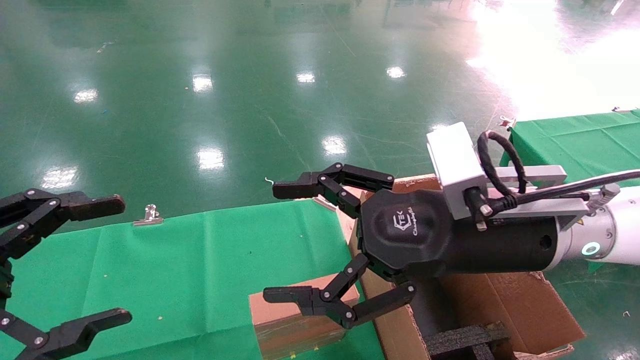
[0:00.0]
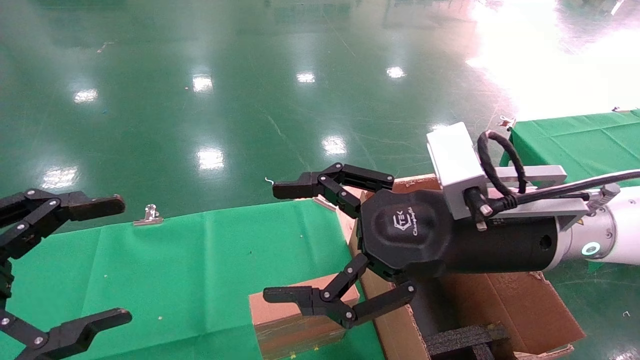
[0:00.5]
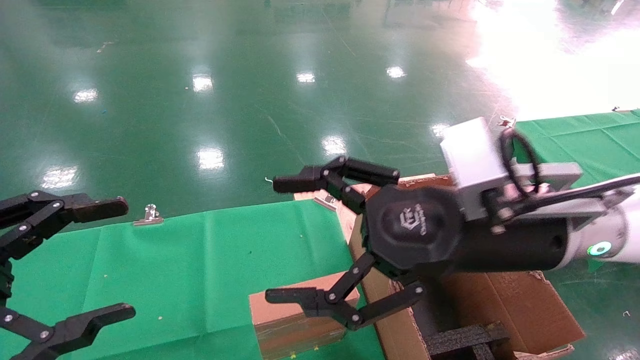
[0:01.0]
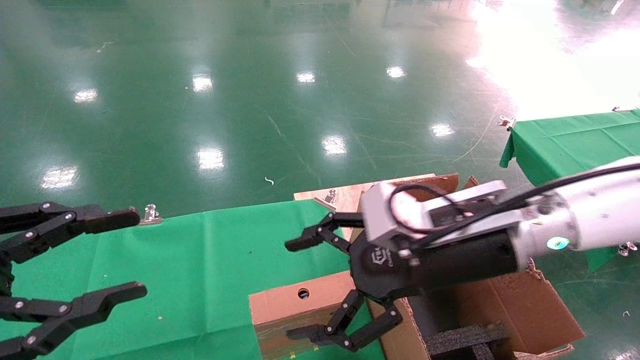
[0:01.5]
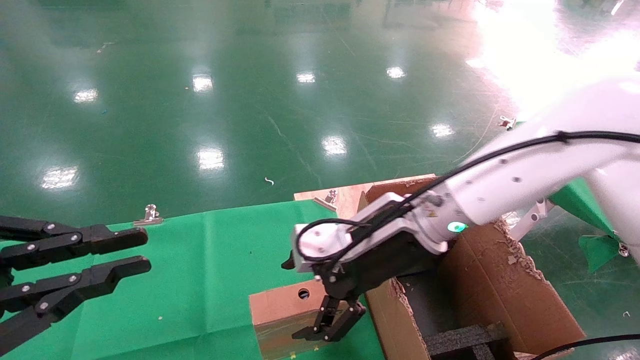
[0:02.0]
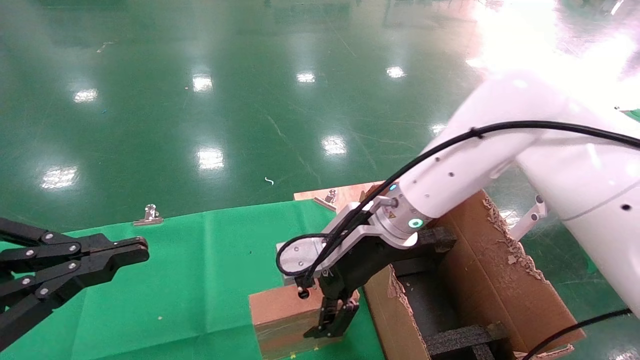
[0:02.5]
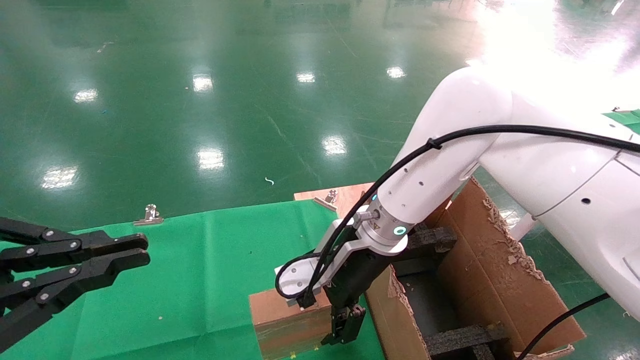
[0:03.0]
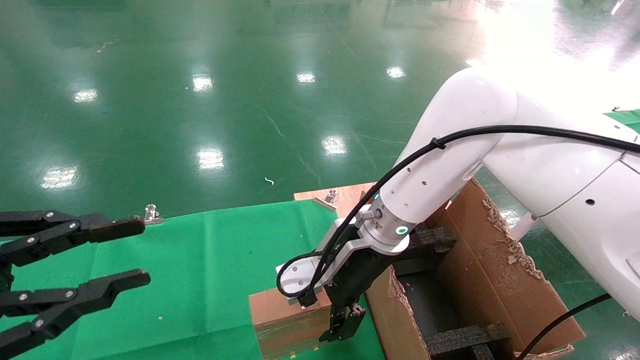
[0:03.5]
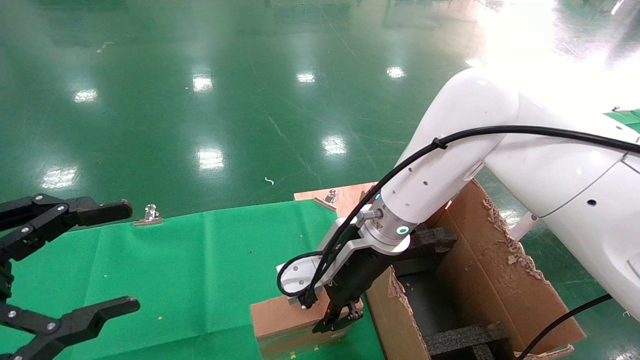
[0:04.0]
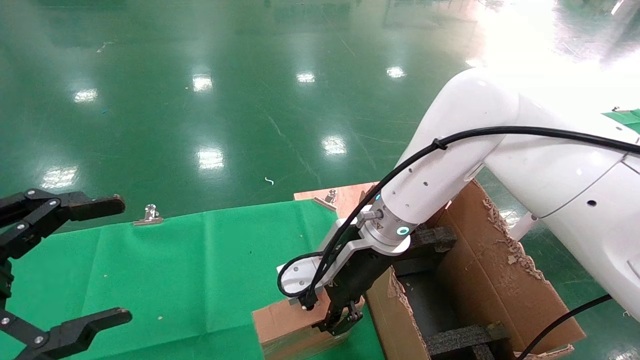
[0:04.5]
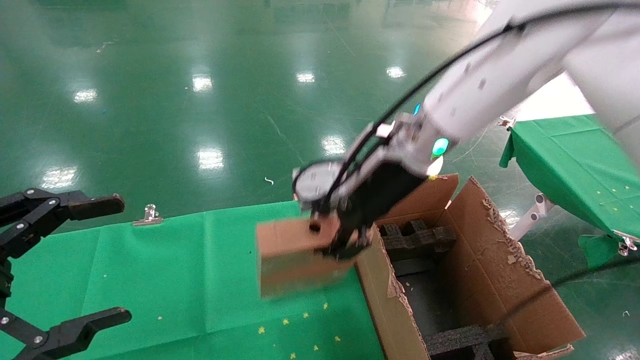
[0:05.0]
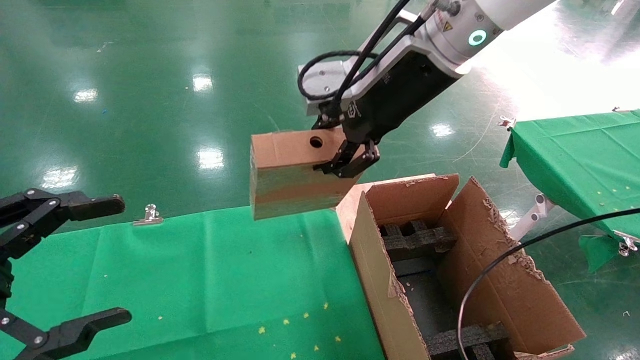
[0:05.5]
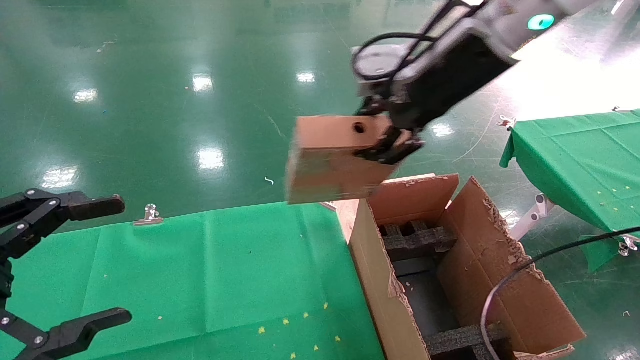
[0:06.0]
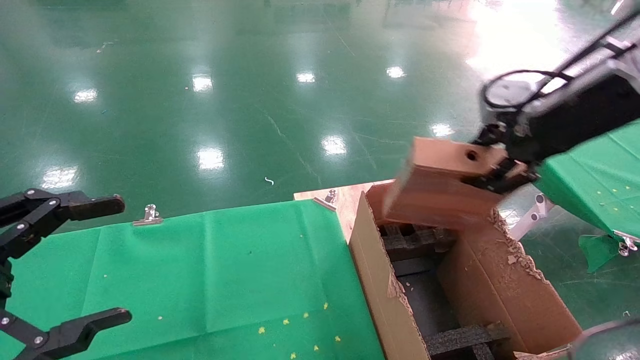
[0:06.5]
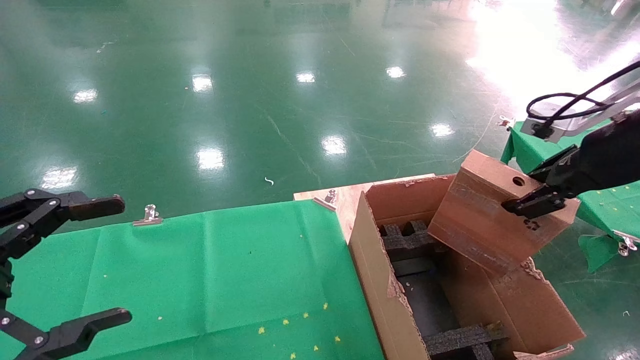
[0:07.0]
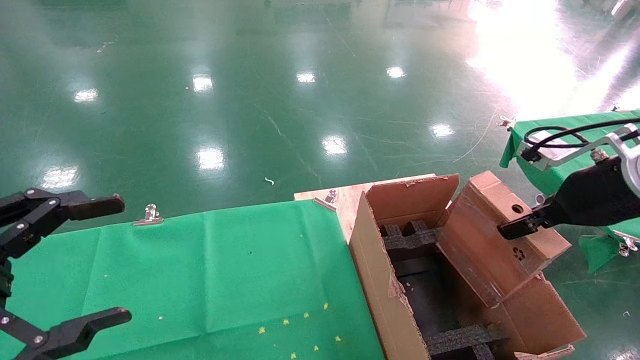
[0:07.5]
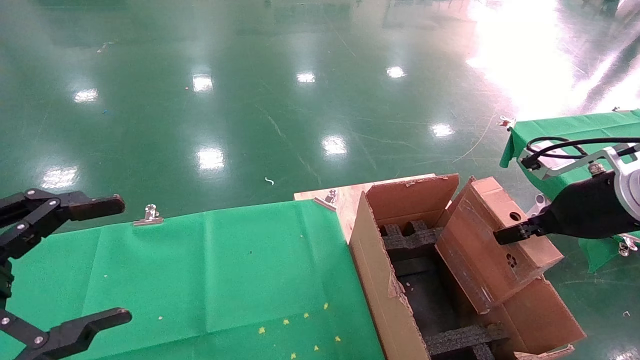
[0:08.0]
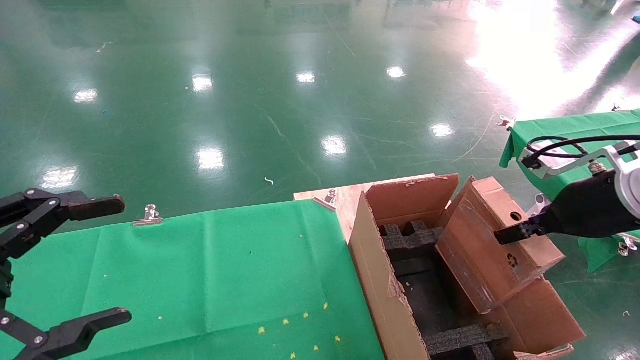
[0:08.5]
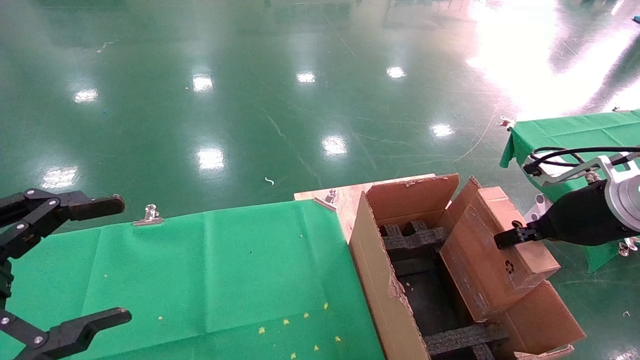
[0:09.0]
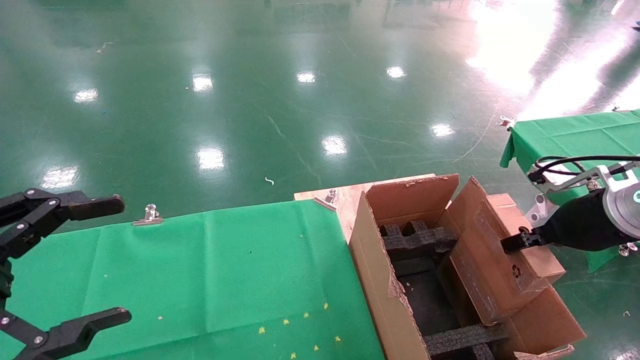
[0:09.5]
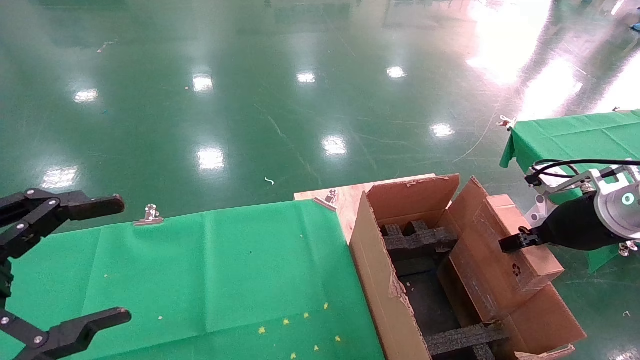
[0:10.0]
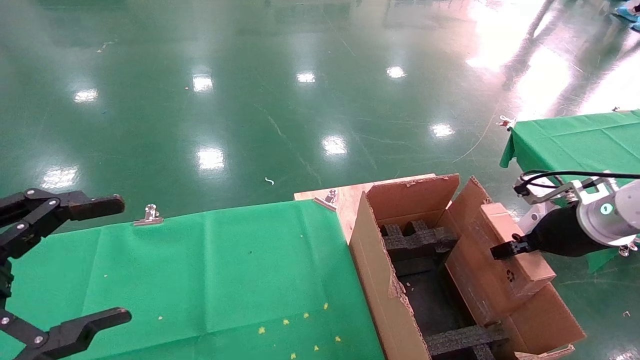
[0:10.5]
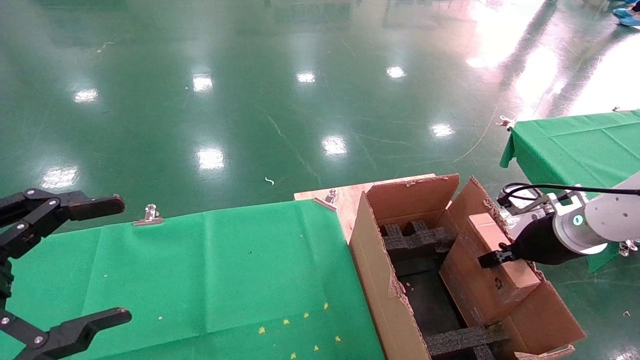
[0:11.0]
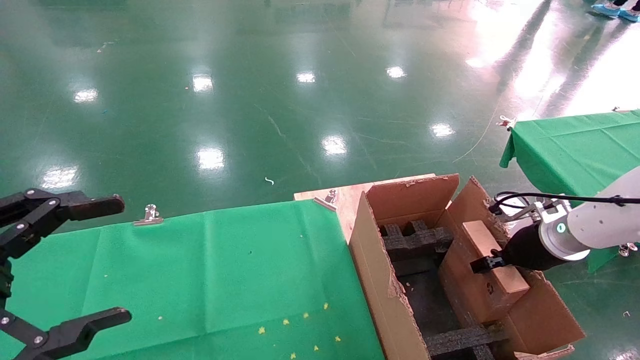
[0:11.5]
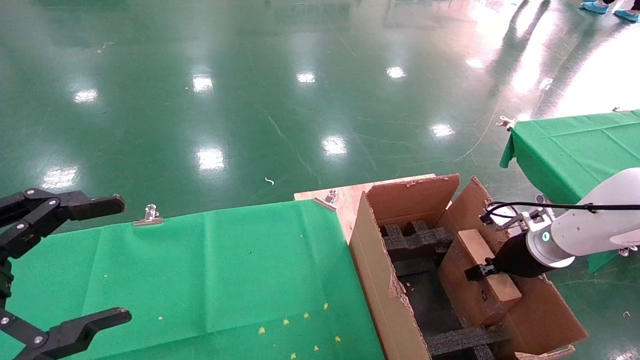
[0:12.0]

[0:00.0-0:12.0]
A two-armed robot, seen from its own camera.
Task of the whole recording: using a robotic arm to pick up a cardboard box and palace it the carton.
Step, 0:01.5 to 0:04.0: Pick up the mouse and the power cord paper box.
0:00.0 to 0:02.0: The right gripper moves forward and to the left, approximately 10 cm. The left gripper closes its fingers.
0:02.0 to 0:04.0: The left gripper opens. Meanwhile the right gripper moves roughly 5 cm, and closes up.
0:04.0 to 0:06.0: The right gripper is displaced upward and to the right by some 25 cm, and closes up.
0:06.0 to 0:08.0: The right gripper travels to the right, downward and backward by approximately 25 cm.
0:08.0 to 0:10.0: The right gripper changes place by roughly 5 cm.
0:10.0 to 0:12.0: The right gripper moves downward and forward, some 15 cm.

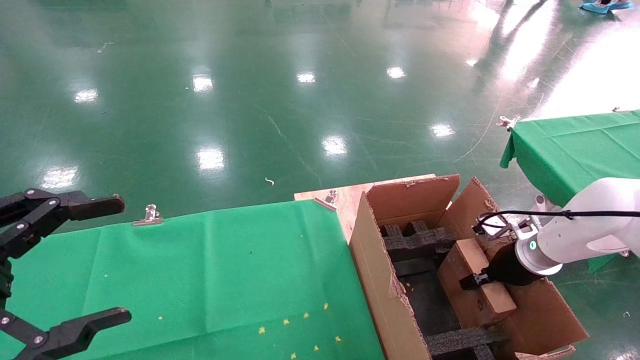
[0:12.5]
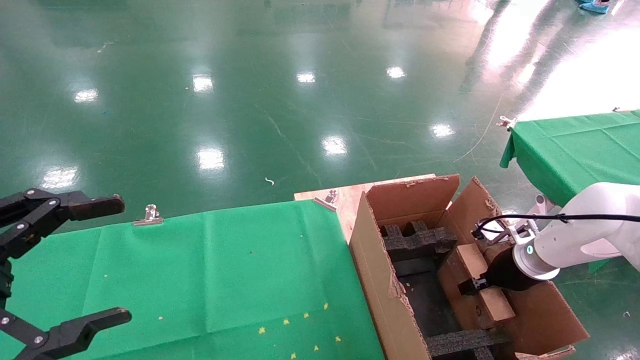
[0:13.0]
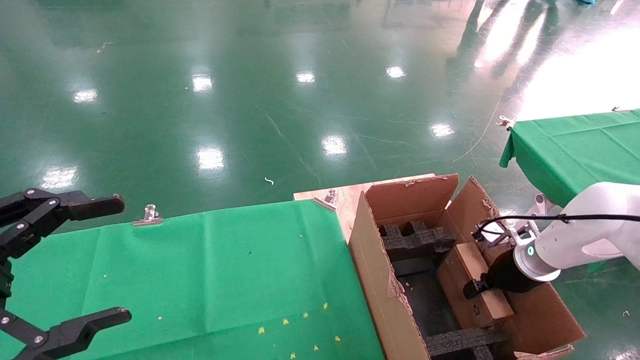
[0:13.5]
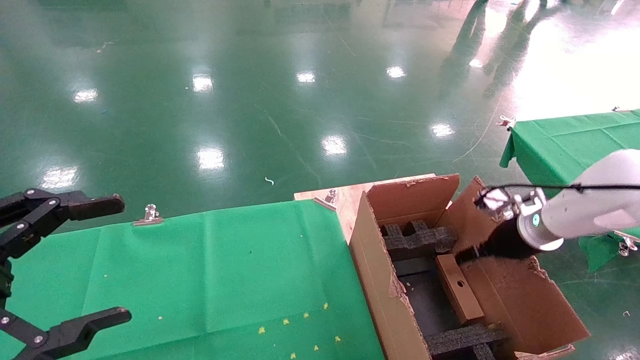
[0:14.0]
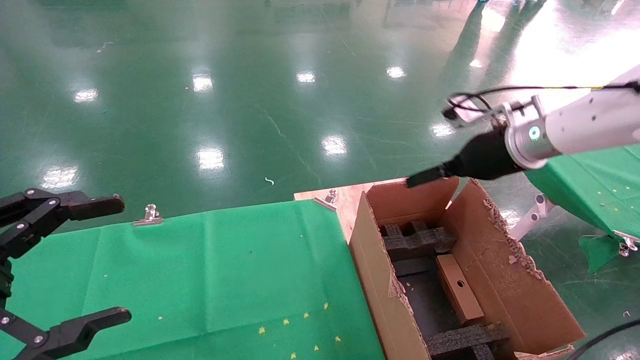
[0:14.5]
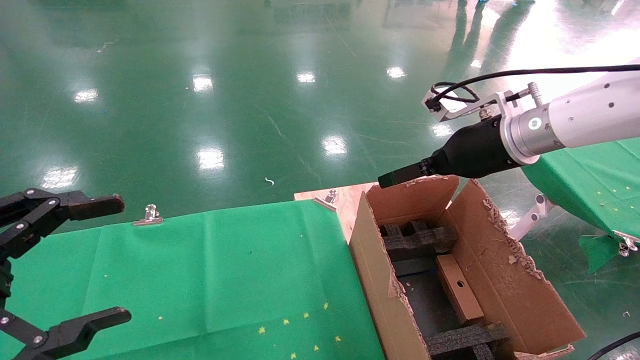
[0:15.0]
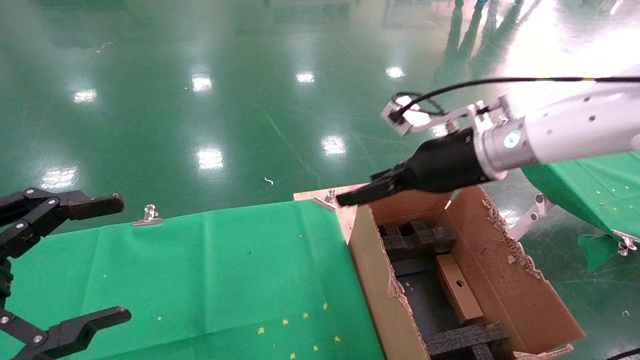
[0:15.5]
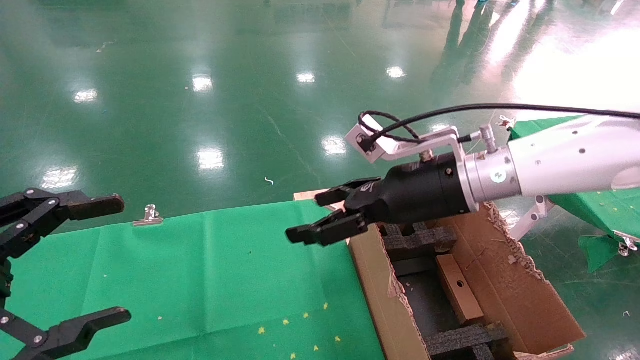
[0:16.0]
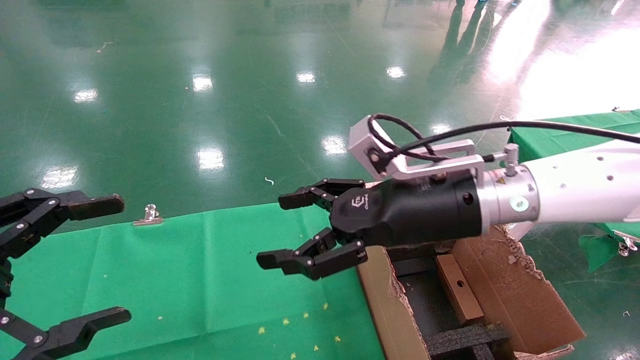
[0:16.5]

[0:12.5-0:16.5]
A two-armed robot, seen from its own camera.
Task of the whole recording: using a robotic arm to pick up a cardboard box and palace it the carton.
0:12.5 to 0:14.5: The right gripper shifts approximately 20 cm upward and to the left, and opens its fingers.
0:14.5 to 0:16.5: The right gripper goes approximately 15 cm to the left and backward.

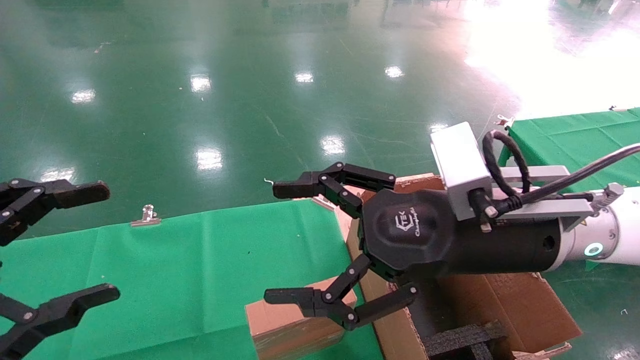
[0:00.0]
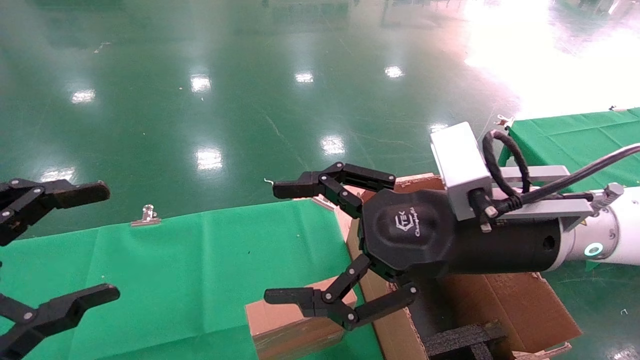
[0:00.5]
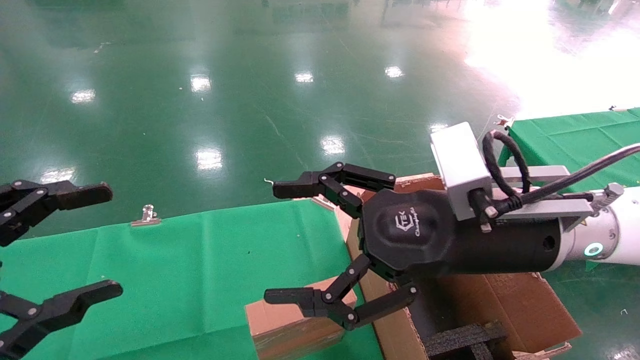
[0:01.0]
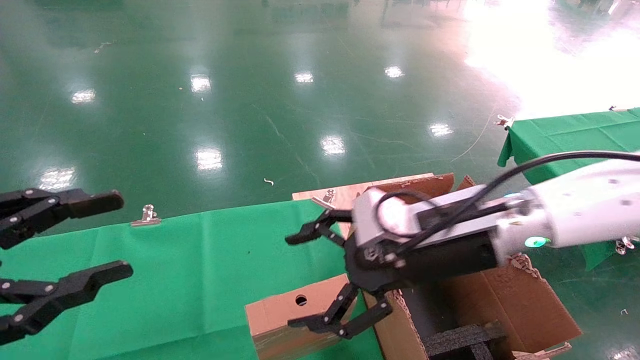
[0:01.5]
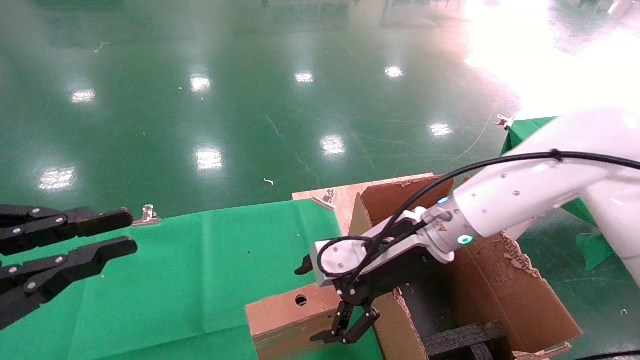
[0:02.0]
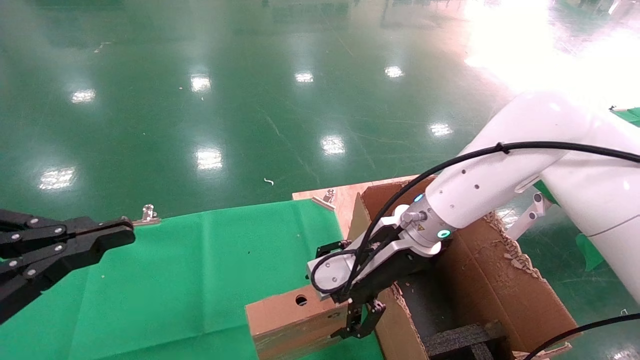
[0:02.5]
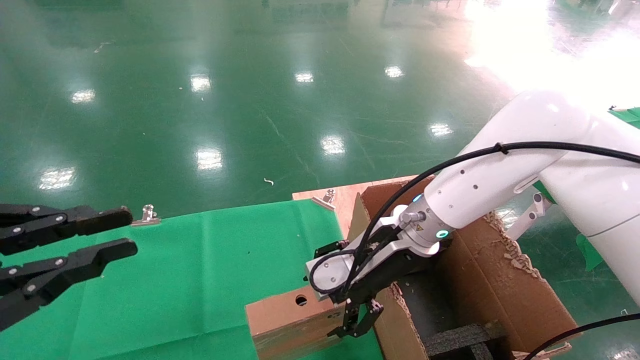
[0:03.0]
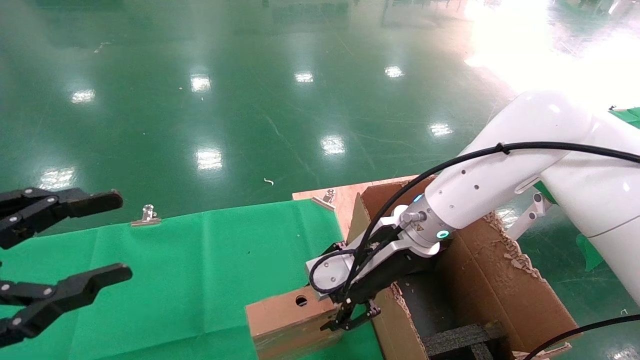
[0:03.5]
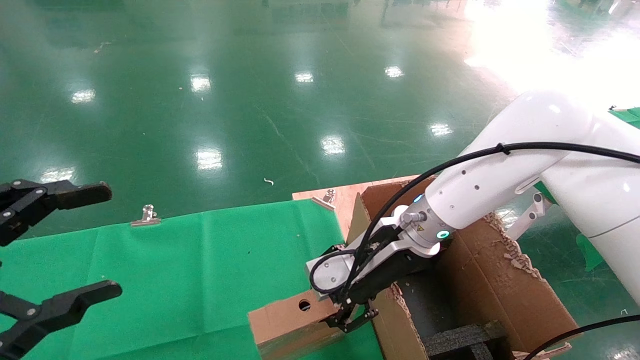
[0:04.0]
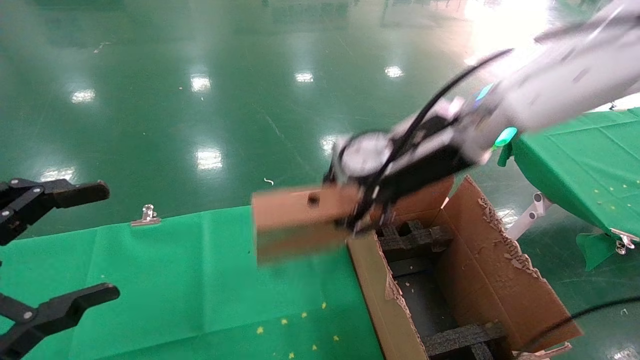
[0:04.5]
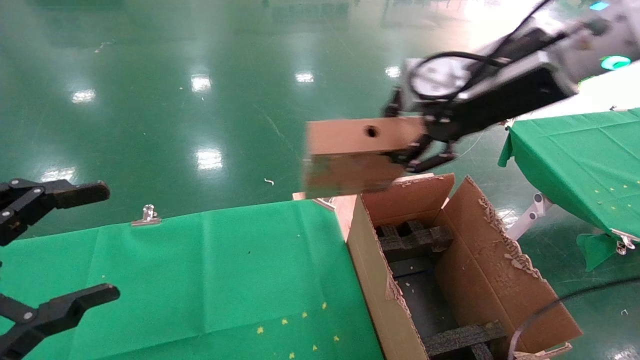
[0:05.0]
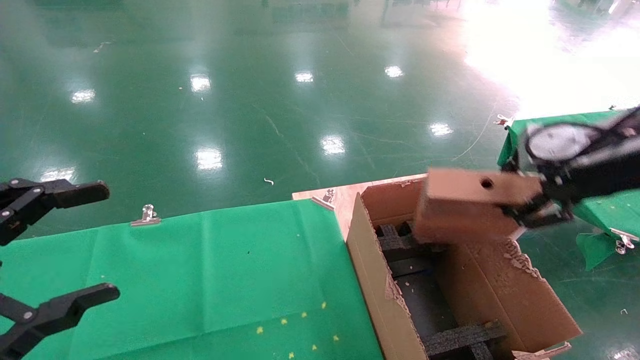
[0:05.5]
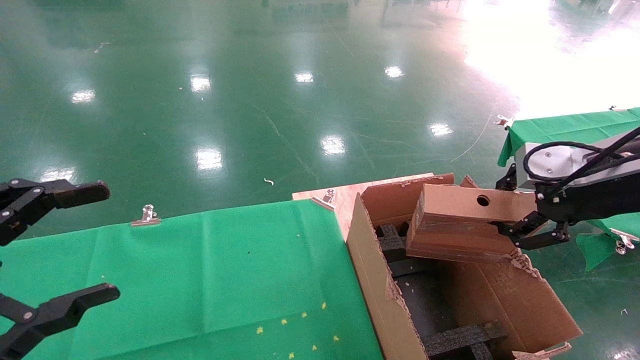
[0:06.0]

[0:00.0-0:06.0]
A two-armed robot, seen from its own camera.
Task of the whole recording: using a robotic arm to pick up a cardboard box and palace it the carton.
Step, 0:01.5 to 0:03.5: Pick up the mouse and the power cord paper box.
0:00.0 to 0:02.0: The left gripper closes up. Meanwhile the right gripper heads forward and downward, covering about 10 cm.
0:02.0 to 0:04.0: The left gripper opens up, while the right gripper closes.
0:04.0 to 0:06.0: The right gripper goes approximately 25 cm to the right, backward and upward.
